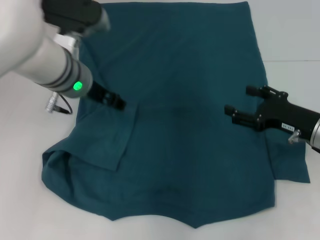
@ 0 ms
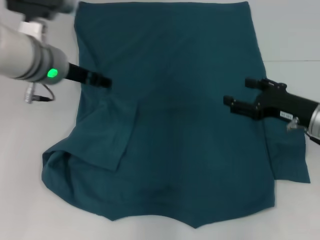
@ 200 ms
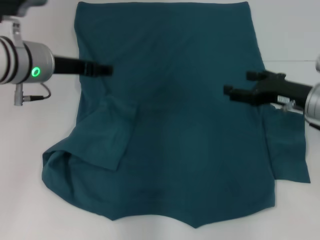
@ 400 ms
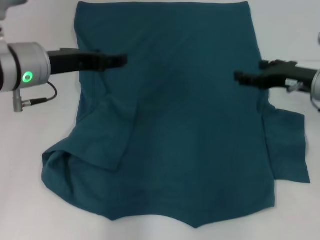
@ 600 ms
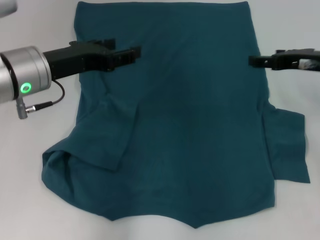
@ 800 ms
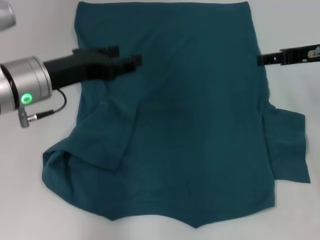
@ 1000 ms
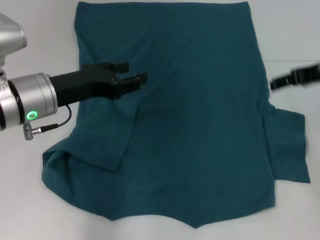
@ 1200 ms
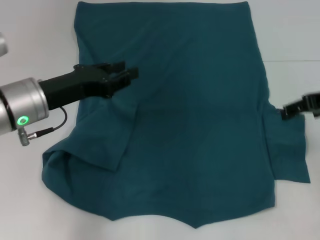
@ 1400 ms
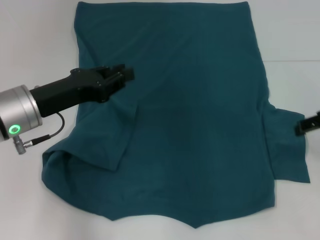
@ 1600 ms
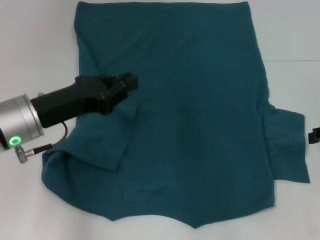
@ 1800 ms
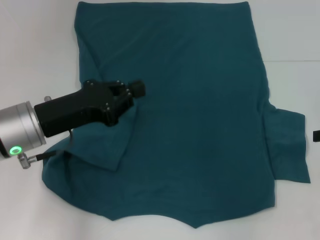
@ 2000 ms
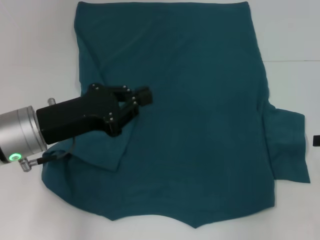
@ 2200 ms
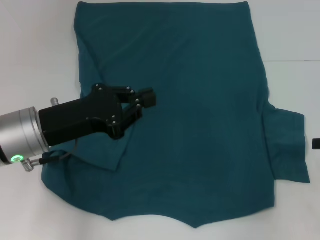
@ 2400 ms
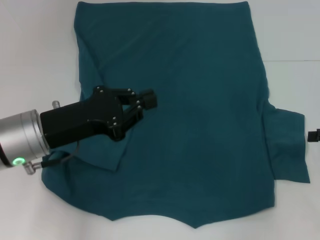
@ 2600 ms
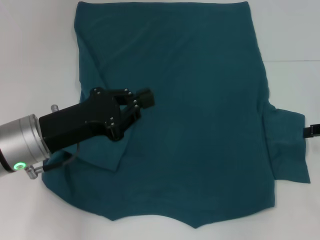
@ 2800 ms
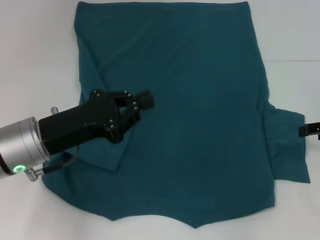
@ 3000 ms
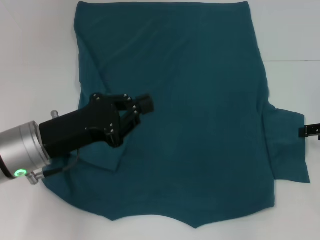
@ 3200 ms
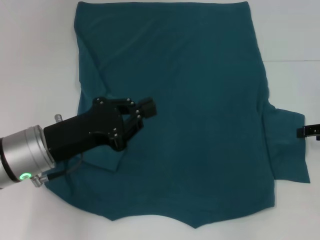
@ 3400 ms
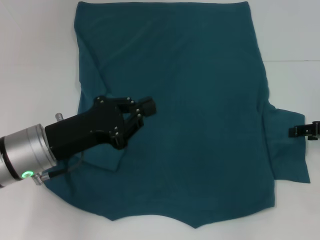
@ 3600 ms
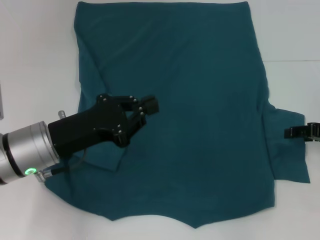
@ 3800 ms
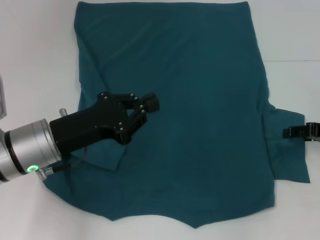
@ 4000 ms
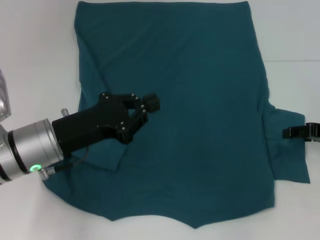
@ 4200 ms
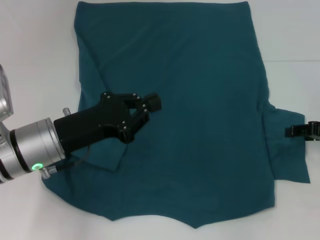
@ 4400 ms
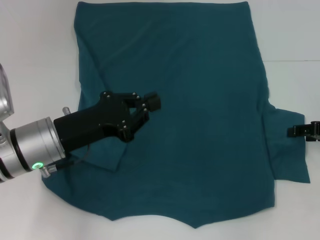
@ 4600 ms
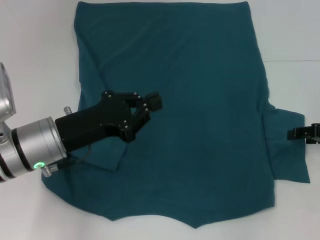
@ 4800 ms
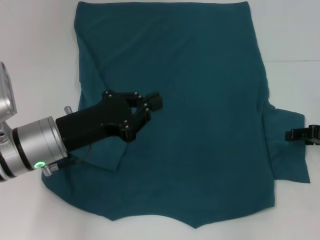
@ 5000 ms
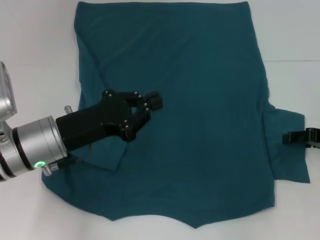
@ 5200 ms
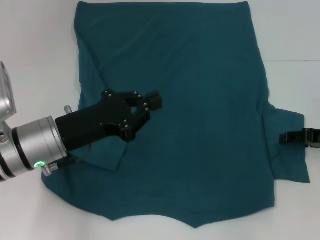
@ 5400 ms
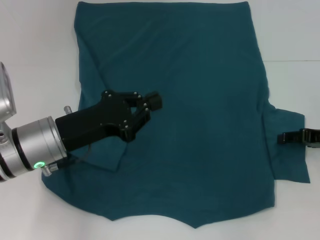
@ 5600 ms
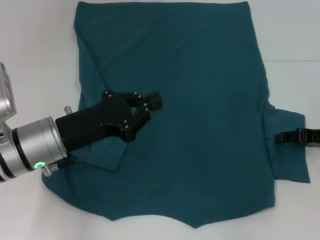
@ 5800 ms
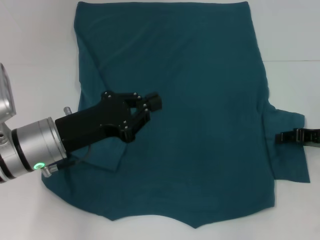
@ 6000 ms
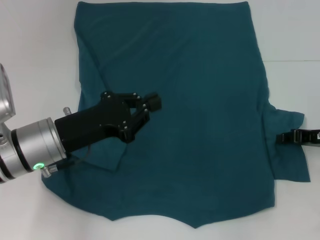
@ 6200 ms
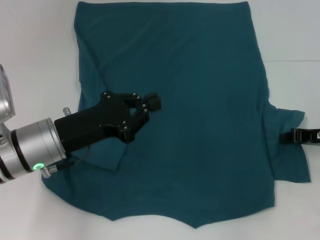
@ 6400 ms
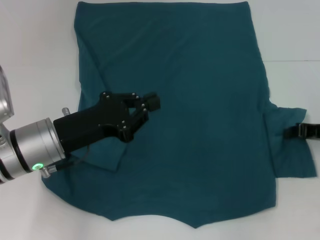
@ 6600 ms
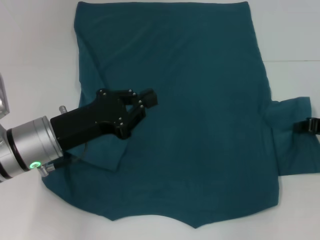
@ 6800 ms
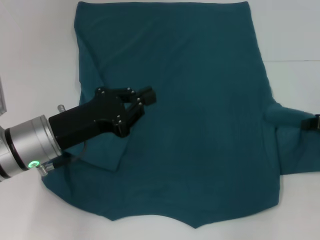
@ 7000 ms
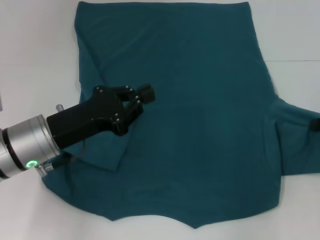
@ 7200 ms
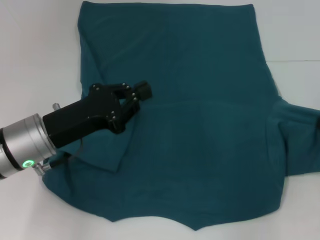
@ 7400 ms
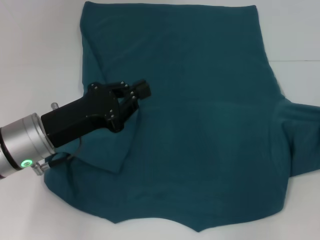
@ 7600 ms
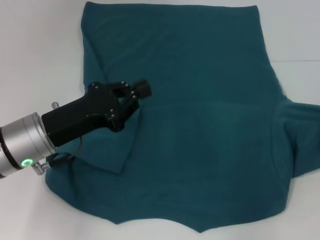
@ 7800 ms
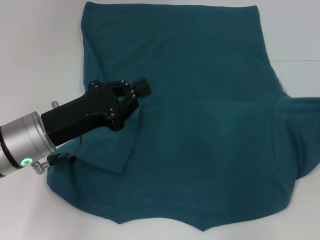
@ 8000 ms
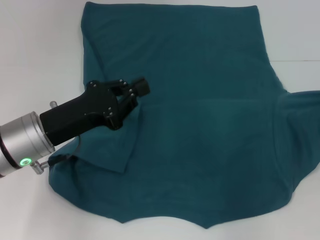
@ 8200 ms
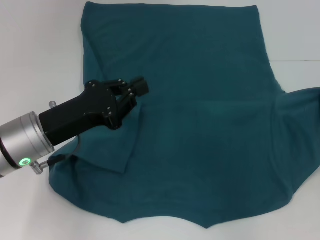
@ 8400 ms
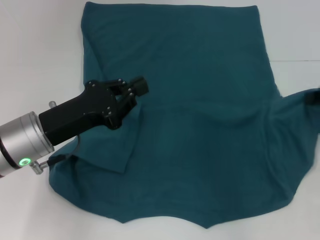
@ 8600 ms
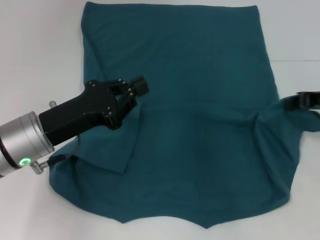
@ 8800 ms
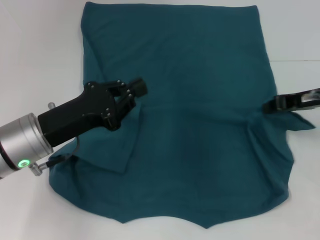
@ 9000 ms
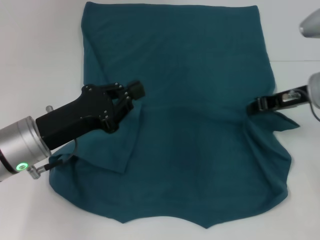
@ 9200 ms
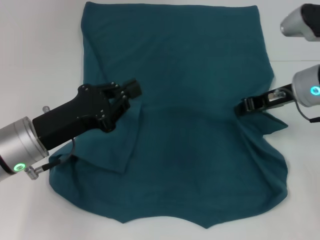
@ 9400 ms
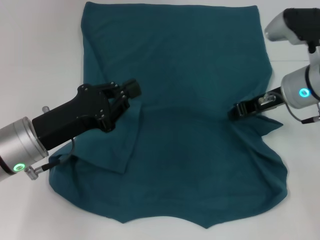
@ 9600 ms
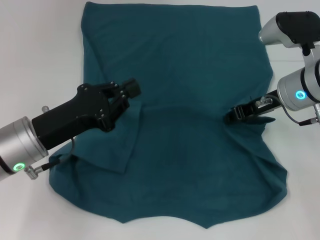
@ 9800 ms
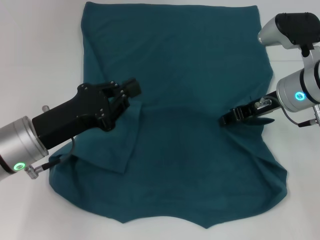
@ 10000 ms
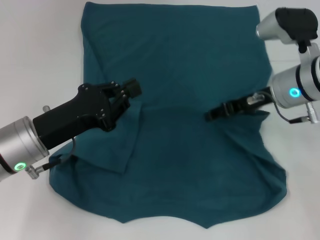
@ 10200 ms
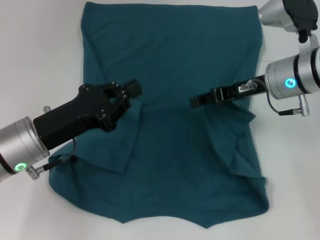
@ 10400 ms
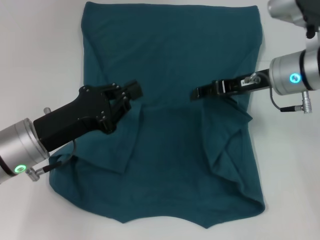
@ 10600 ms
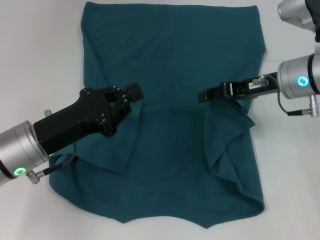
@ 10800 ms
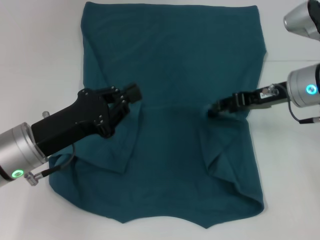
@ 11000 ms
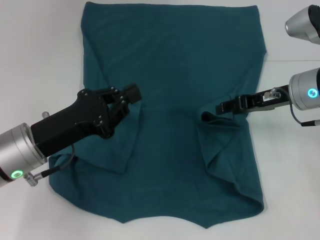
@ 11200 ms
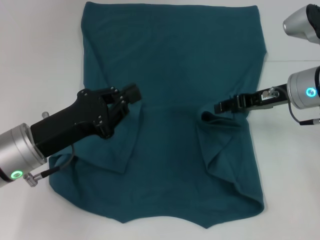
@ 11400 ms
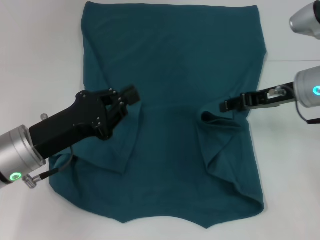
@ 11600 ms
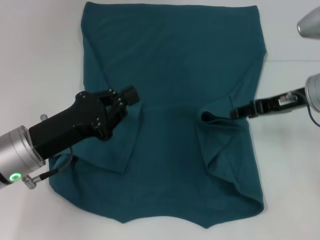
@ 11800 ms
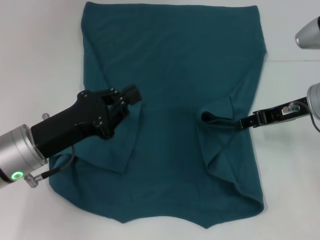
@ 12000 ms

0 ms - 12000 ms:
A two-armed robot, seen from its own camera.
0 ms - 1600 ms: The right gripper goes about 15 cm upward, while the left gripper shifts about 10 cm backward and to the left, and opens, then closes once more.
1600 ms - 3000 ms: The right gripper shifts approximately 10 cm downward and to the right, while the left gripper closes.
3000 ms - 6000 ms: The grippers stay close to where they were, moving slightly.
6000 ms - 7600 ms: The right gripper goes approximately 5 cm upward, and closes.
7600 ms - 9000 ms: The right gripper moves to the left and forward, roughly 10 cm.
9000 ms - 10400 ms: The right gripper heads to the left, covering about 10 cm, and opens its fingers.
10400 ms - 12000 ms: The right gripper travels to the right by about 5 cm.

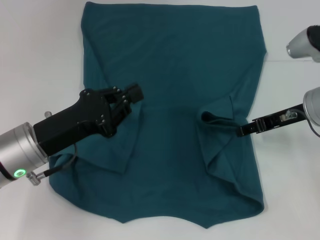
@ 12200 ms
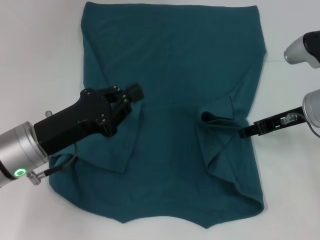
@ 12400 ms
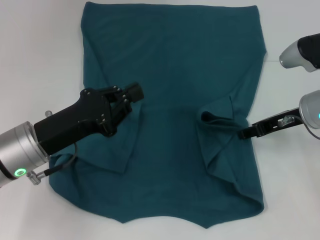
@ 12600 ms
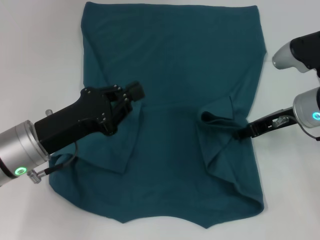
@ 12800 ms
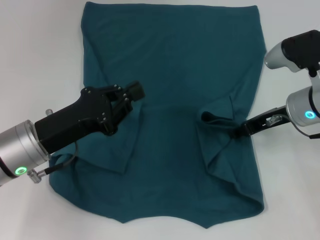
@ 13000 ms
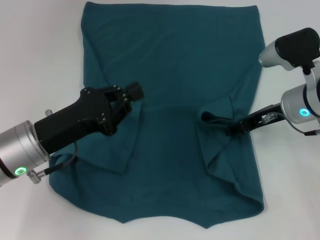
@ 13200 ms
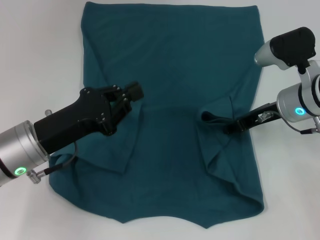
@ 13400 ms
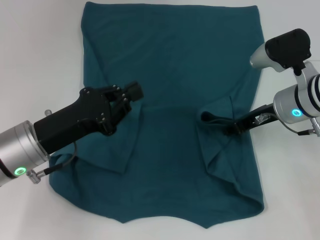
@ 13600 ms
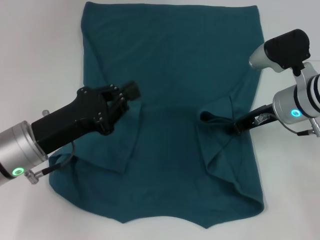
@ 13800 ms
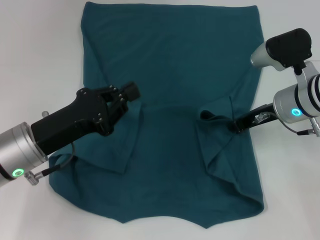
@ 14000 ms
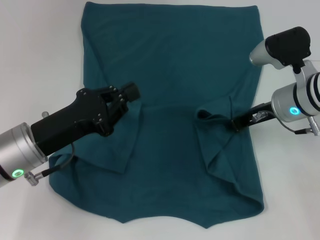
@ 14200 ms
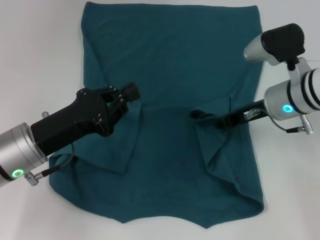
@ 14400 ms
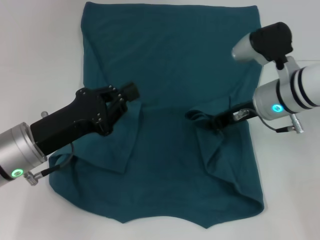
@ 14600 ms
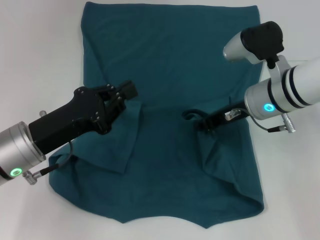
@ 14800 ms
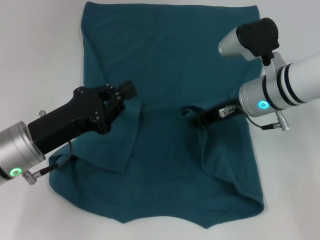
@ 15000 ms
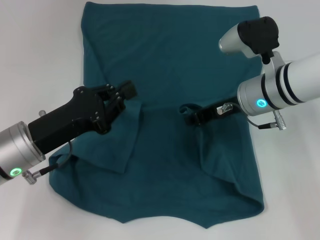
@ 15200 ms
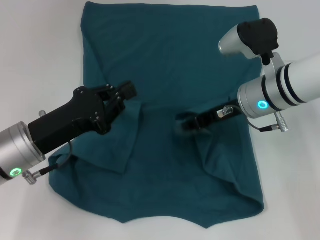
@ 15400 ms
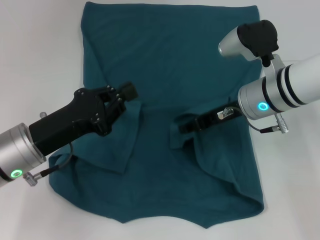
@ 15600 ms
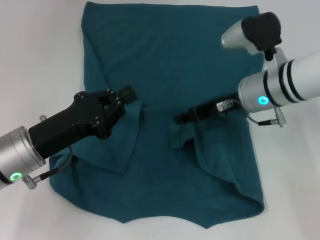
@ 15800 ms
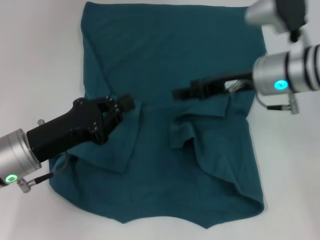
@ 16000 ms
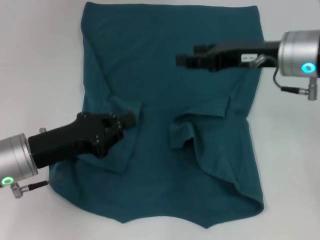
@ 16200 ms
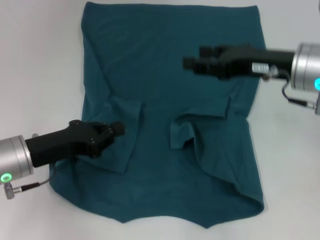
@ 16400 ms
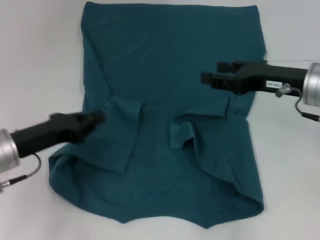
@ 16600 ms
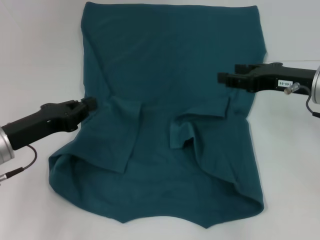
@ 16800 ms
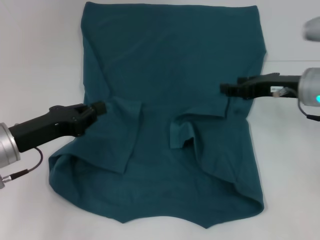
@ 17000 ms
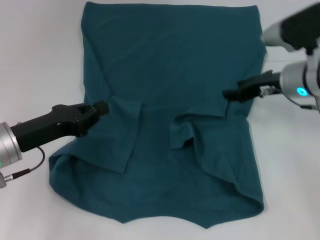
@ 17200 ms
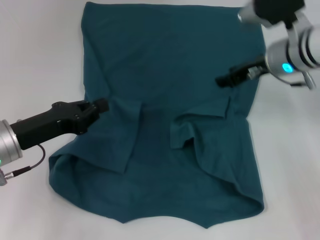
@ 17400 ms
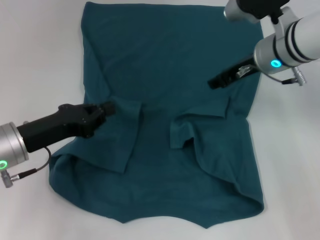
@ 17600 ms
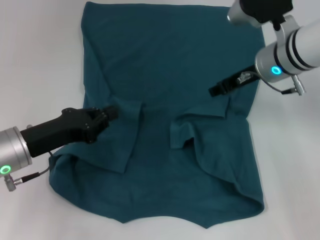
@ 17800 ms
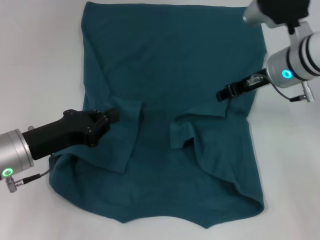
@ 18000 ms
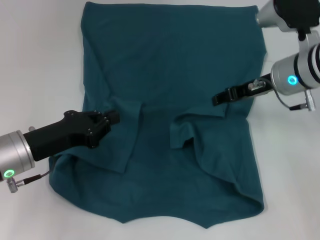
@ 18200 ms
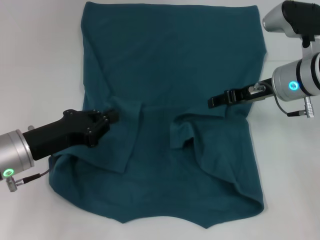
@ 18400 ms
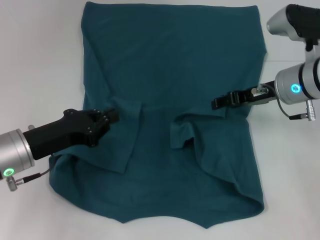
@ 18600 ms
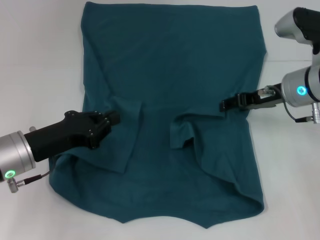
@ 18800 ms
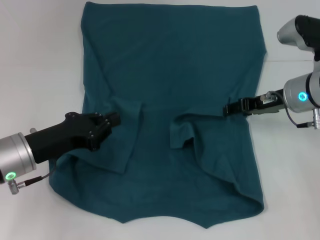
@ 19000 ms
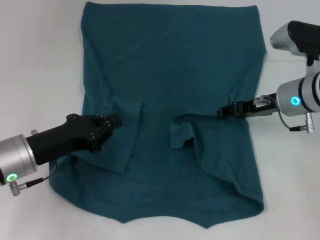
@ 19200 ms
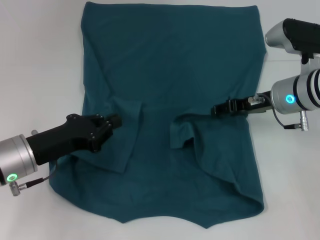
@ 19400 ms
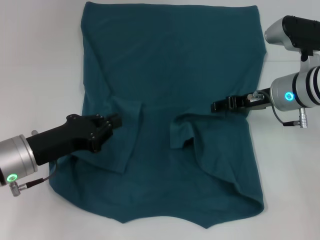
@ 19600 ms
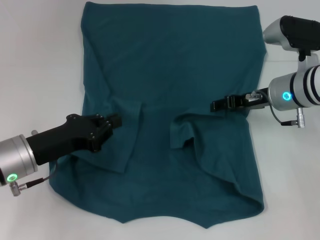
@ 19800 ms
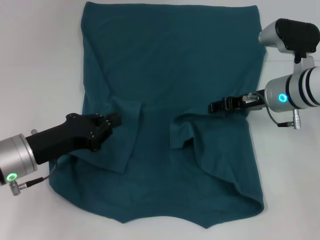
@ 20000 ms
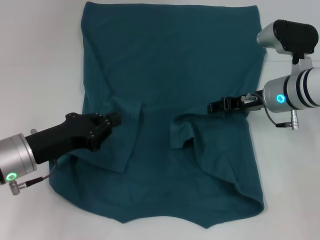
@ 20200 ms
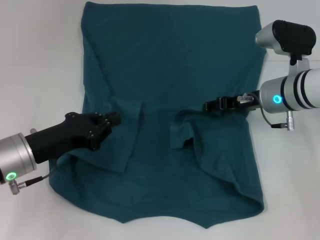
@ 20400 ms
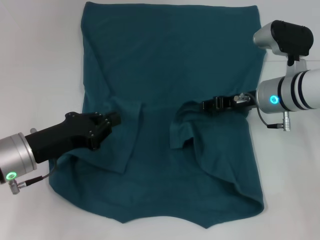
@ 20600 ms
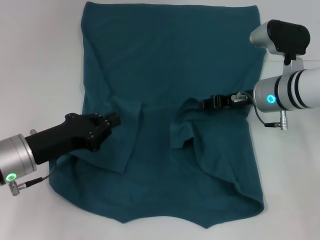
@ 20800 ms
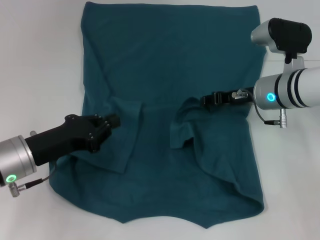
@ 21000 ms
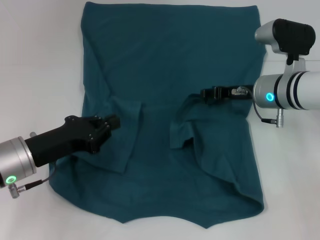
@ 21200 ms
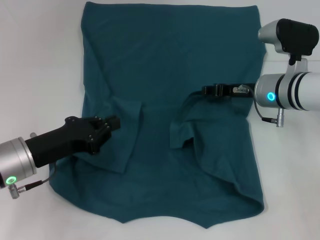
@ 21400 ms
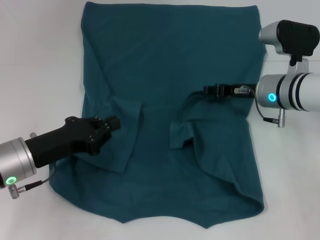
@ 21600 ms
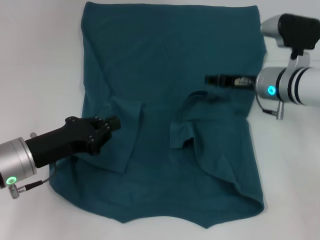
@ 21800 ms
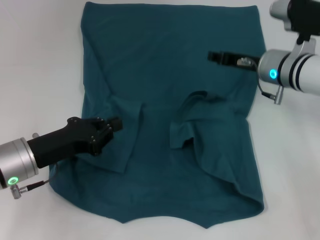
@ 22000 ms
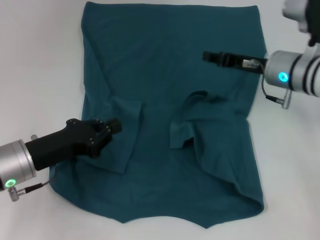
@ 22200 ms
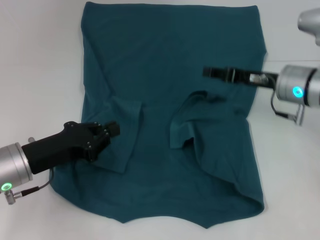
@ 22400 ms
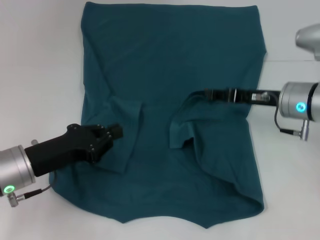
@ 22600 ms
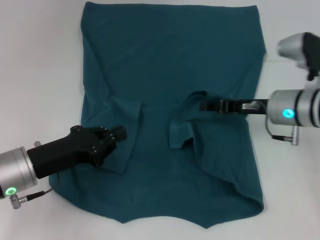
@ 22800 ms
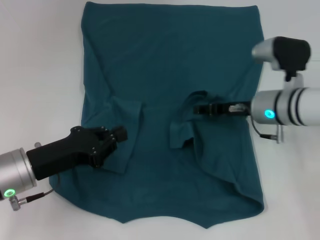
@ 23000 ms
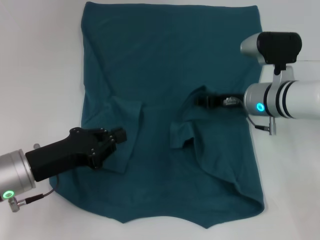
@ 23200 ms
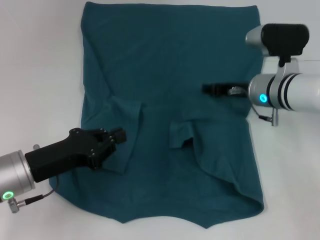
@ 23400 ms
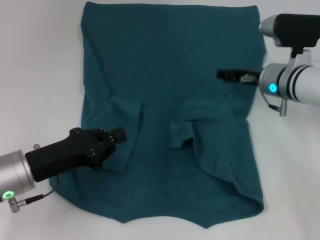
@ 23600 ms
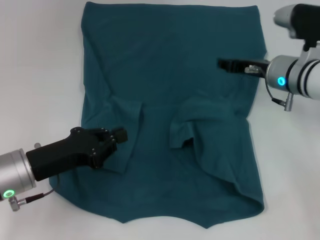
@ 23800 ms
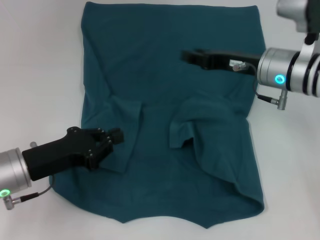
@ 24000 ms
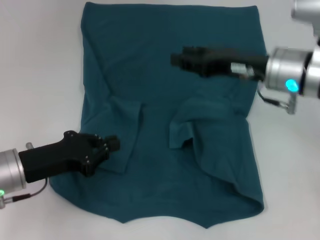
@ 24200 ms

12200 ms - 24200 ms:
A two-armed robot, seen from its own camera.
Step, 12200 ms - 22200 ms: Fold the bottom right sleeve to the right.
12200 ms - 13800 ms: The grippers move only a little.
13800 ms - 15200 ms: The right gripper goes about 5 cm to the left.
15200 ms - 16600 ms: The right gripper moves to the right, about 5 cm, and opens.
16600 ms - 18200 ms: The right gripper travels forward by some 5 cm.
18200 ms - 21200 ms: There are only small adjustments of the grippers.
21200 ms - 22600 ms: The right gripper ends up some 5 cm from where it was.
22600 ms - 24200 ms: The right gripper shifts some 5 cm upward.
